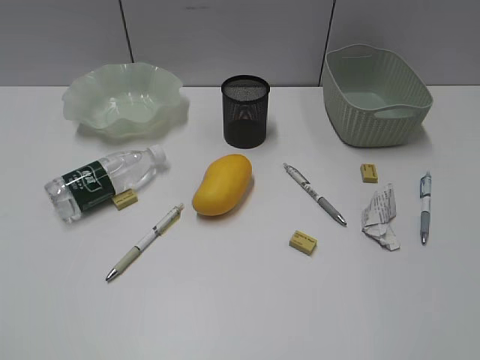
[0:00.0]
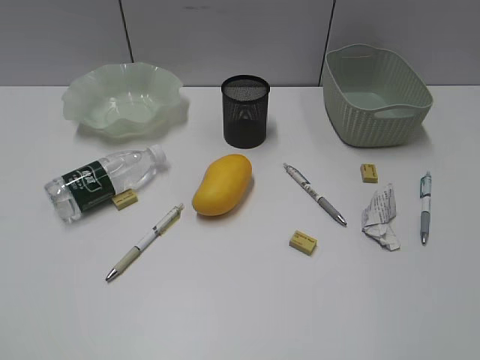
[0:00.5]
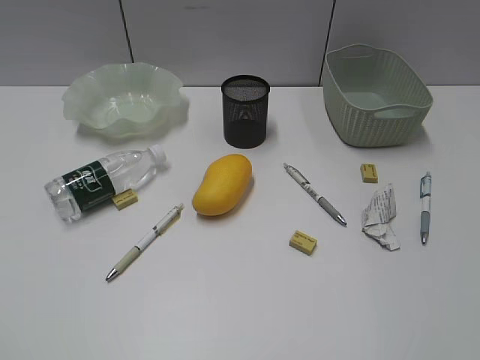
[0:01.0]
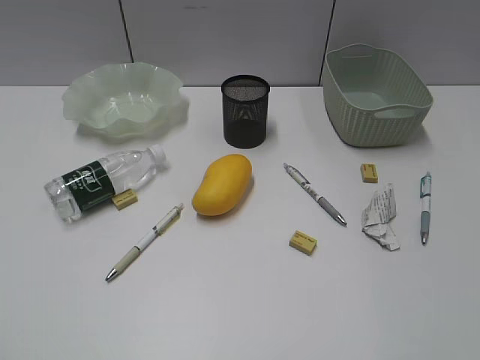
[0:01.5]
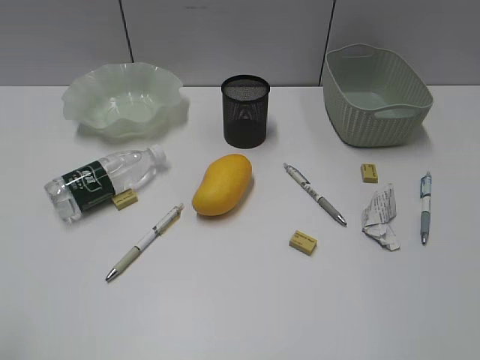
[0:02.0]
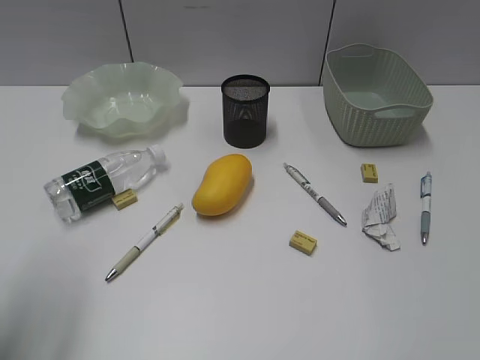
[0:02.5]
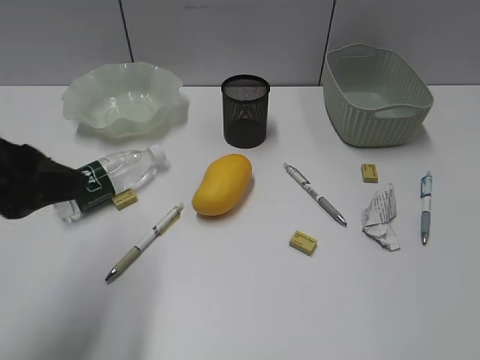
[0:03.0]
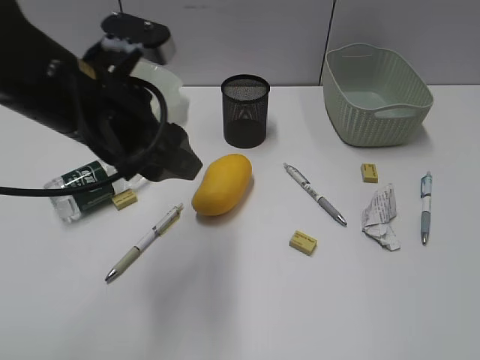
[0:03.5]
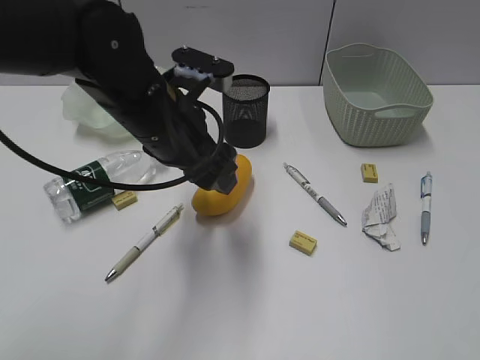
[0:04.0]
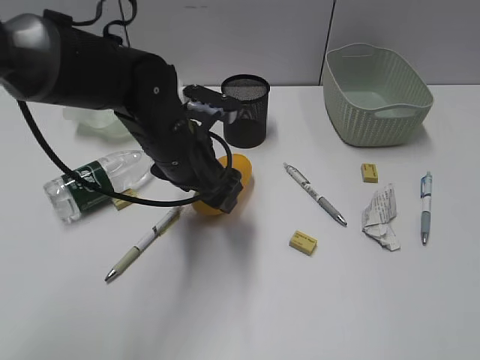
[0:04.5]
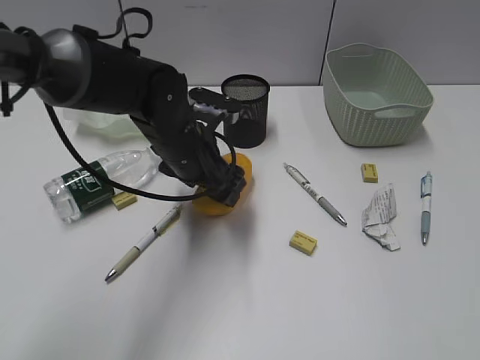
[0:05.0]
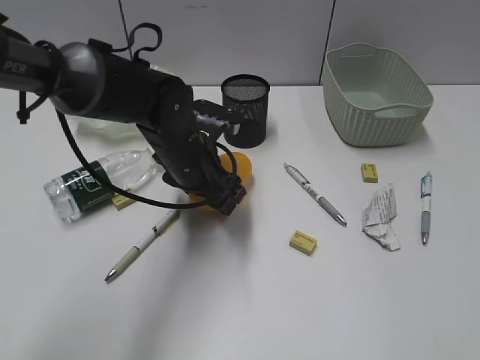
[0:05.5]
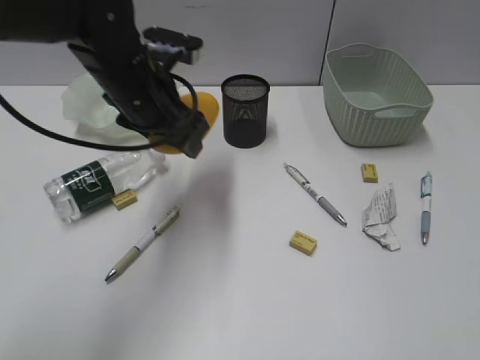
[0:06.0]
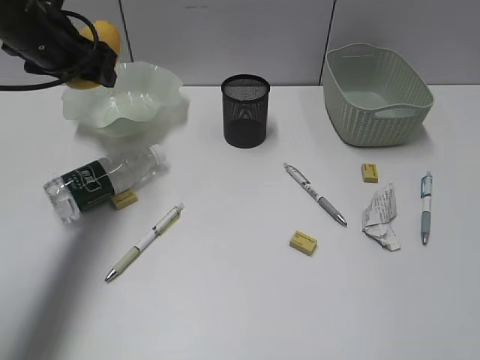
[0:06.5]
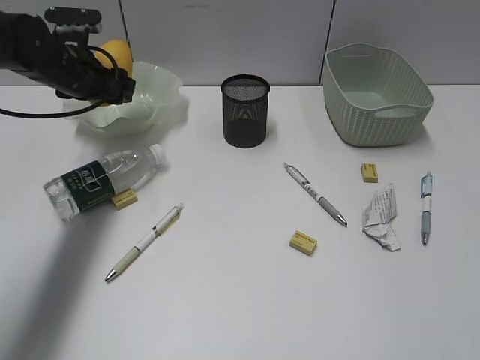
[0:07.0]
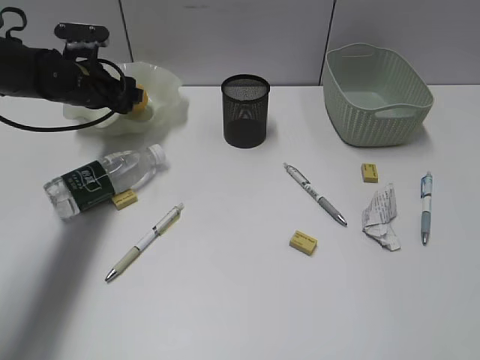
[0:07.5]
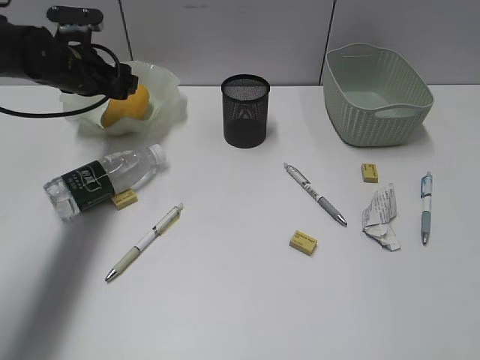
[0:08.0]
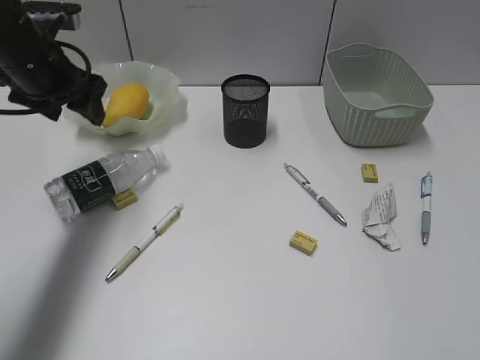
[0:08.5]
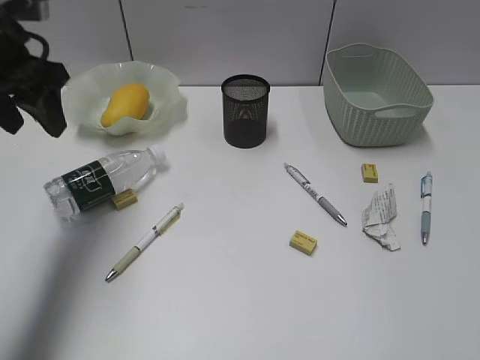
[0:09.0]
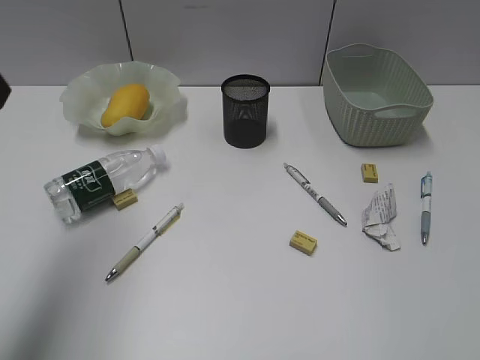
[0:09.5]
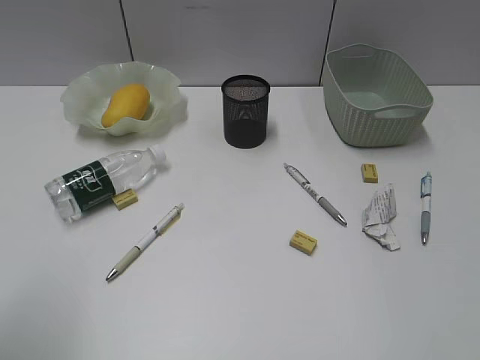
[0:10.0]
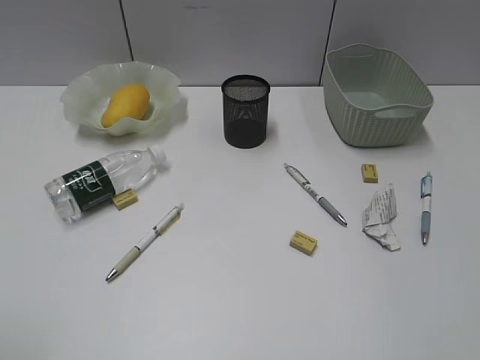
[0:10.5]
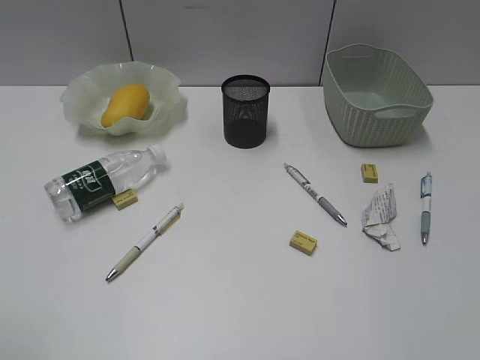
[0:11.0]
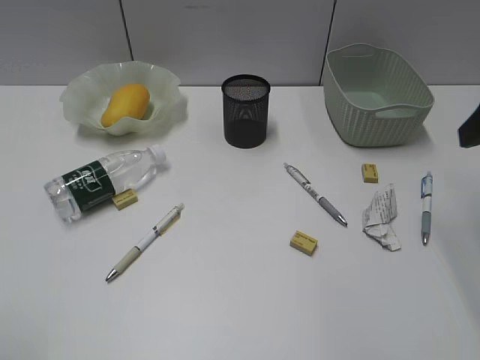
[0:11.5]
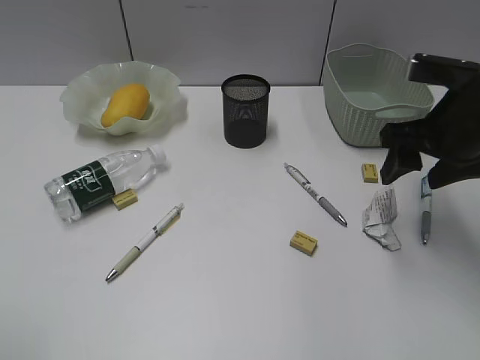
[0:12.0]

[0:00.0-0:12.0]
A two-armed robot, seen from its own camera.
Step, 0:03.0 to 0:05.5: Grasp the mango with left gripper.
Step, 0:06.0 to 0:08.0: Place the mango in the plate with left gripper.
0:02.0 to 0:04.0: The left gripper goes approximately 35 cm forward and to the right.
0:04.0 to 0:06.0: The left gripper goes roughly 5 cm forward, and travels downward and back again, roughly 10 cm each way.
0:06.0 to 0:08.0: The left gripper is displaced to the left and forward by roughly 15 cm.
0:08.0 to 0:10.0: The left gripper shifts roughly 40 cm backward and upward.
0:10.0 to 0:12.0: The right gripper moves forward, approximately 30 cm.

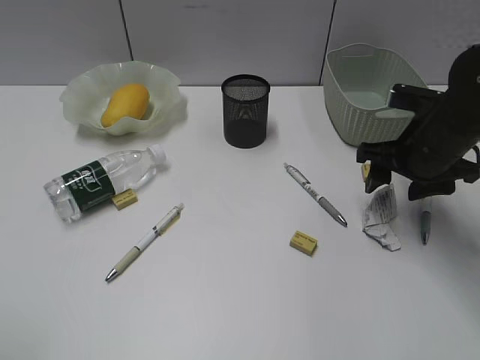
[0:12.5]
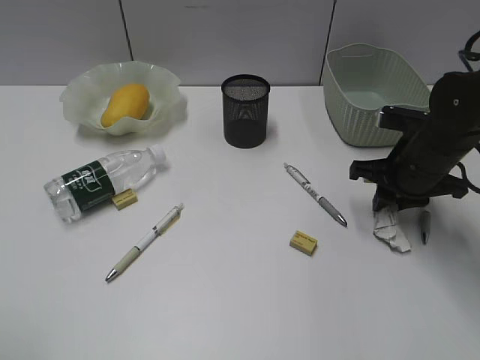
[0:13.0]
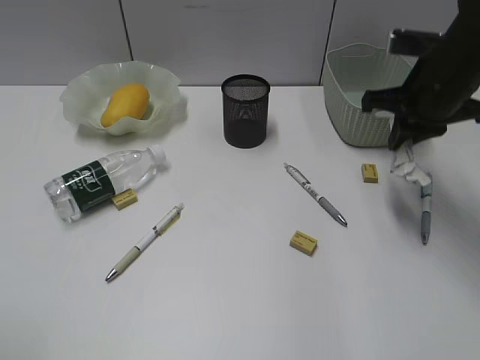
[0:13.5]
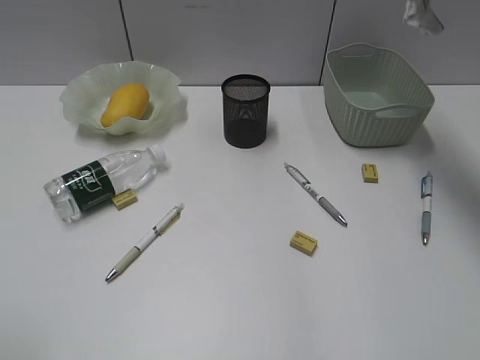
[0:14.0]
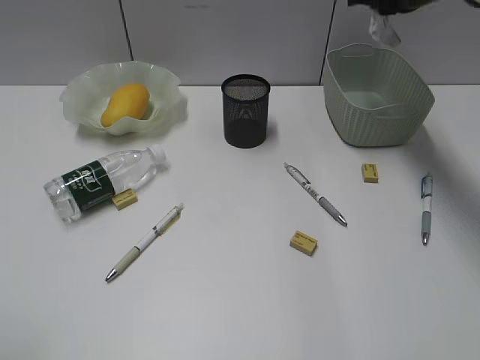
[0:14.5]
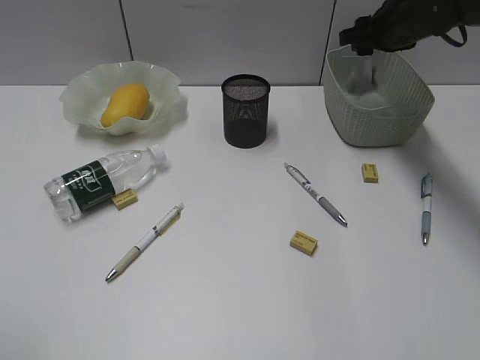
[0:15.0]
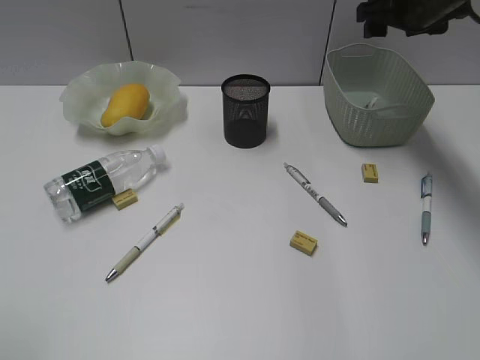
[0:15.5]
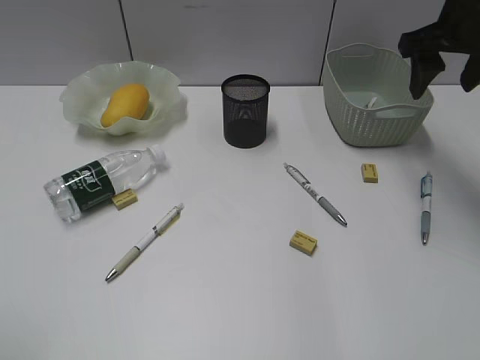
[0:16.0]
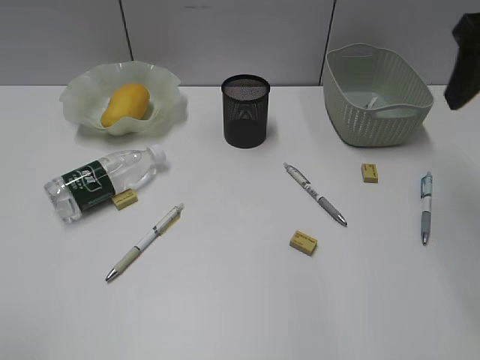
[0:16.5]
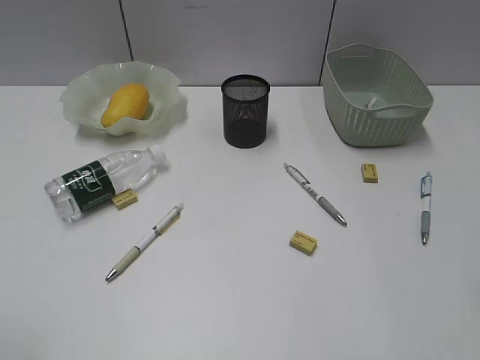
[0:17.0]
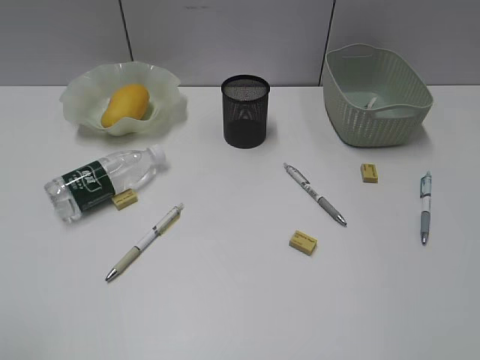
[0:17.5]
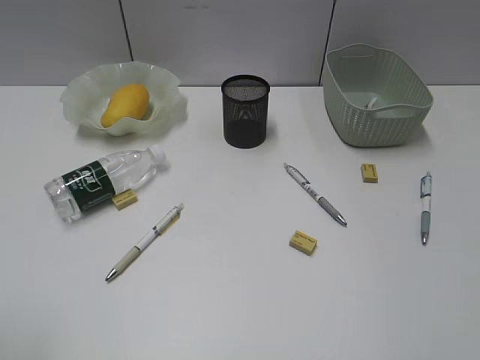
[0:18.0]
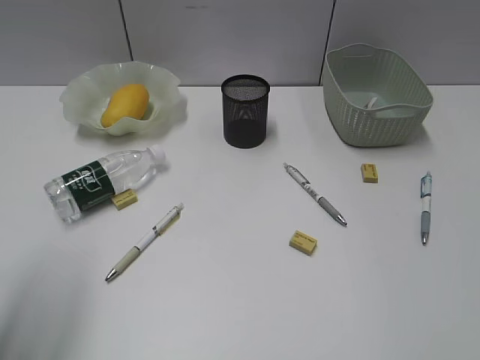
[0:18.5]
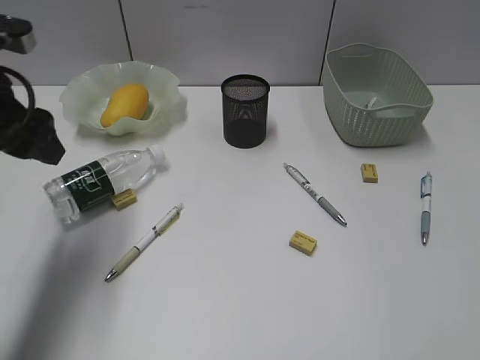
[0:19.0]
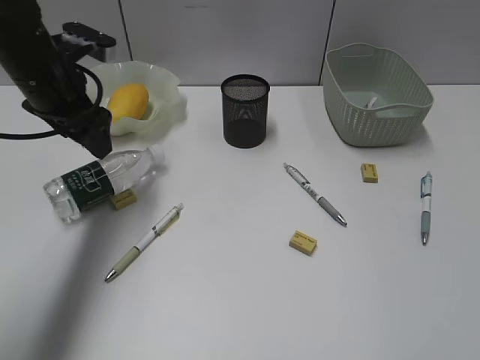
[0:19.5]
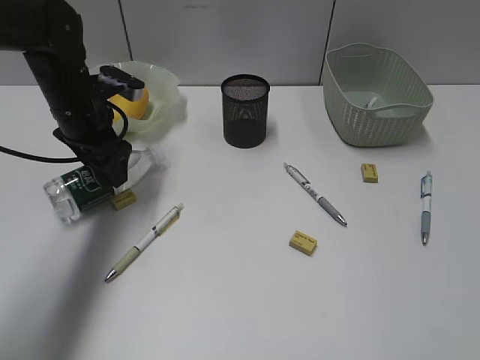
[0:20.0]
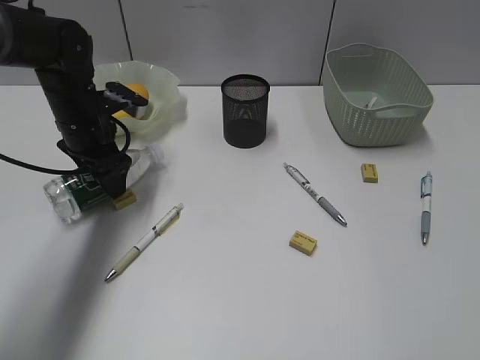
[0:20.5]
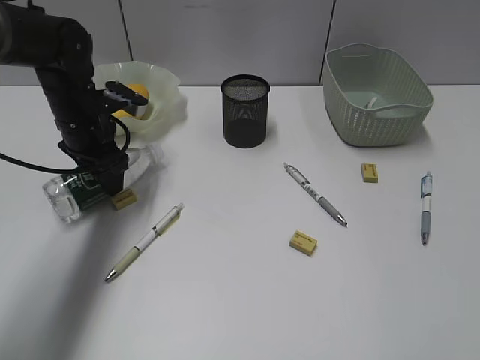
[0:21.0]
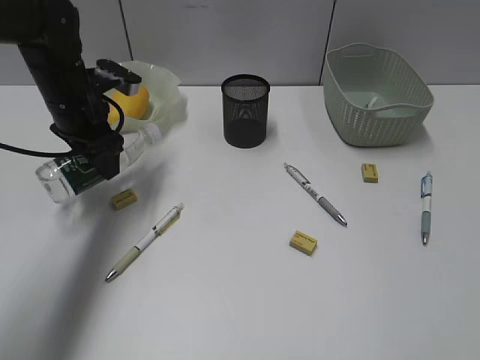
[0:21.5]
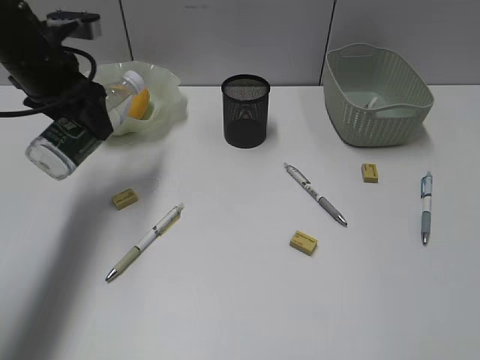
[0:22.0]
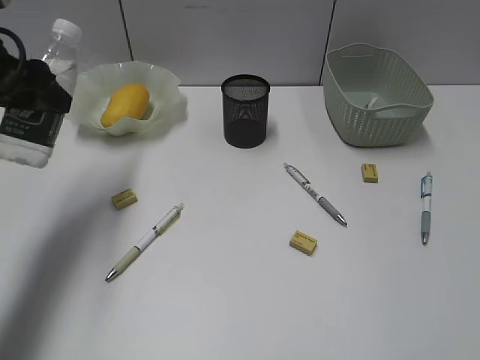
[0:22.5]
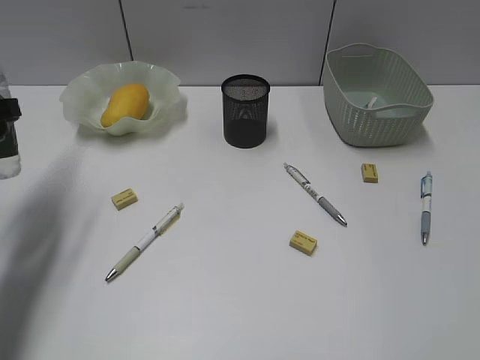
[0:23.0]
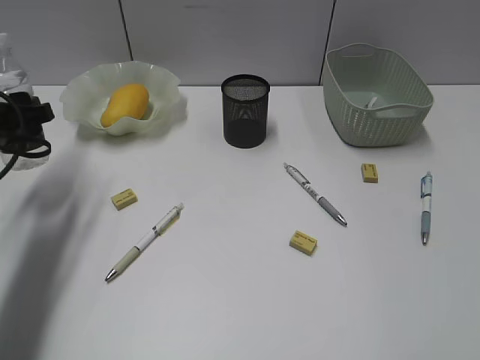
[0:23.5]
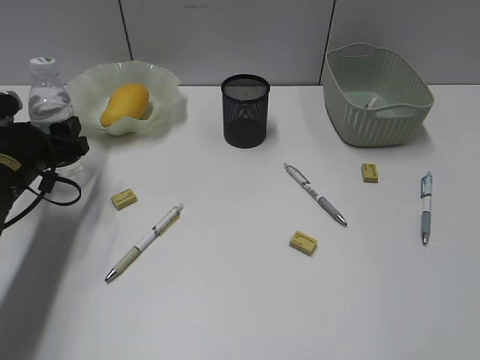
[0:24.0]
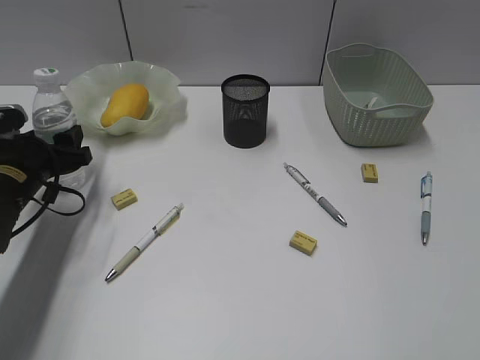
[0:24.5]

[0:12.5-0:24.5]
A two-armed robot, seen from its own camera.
Step, 0:13.5 to 0:15.0: Place the waste paper in the basket with right gripper.
Step, 0:15.5 to 0:21.0: Grasp the bottle with left gripper.
0:12.5 to 0:14.5: The right gripper travels forward and upward by approximately 20 cm, and closes.
0:14.5 to 0:16.5: The right gripper goes some 15 cm backward, and opens.
0:16.5 to 0:18.5: The right gripper heads backward, covering some 30 cm, while the left gripper is displaced forward by roughly 10 cm.
0:18.5 to 0:20.5: The left gripper goes approximately 30 cm forward and downward.
0:20.5 to 0:22.5: The left gripper heads upward, backward and to the left, covering approximately 15 cm.
0:22.5 to 0:24.5: The left gripper travels downward by roughly 20 cm.

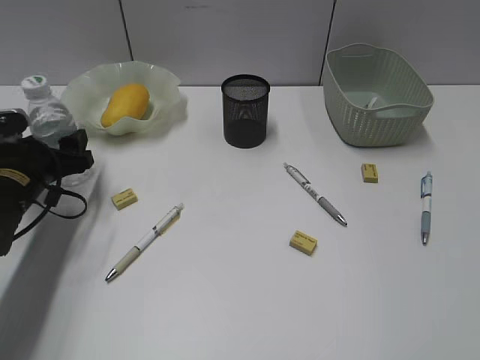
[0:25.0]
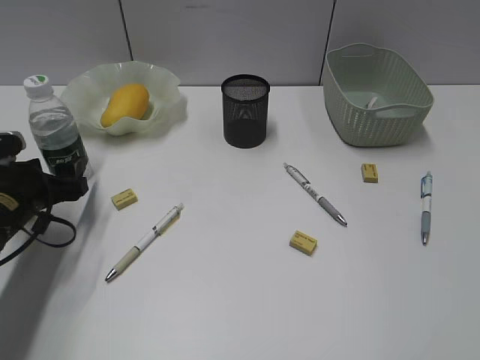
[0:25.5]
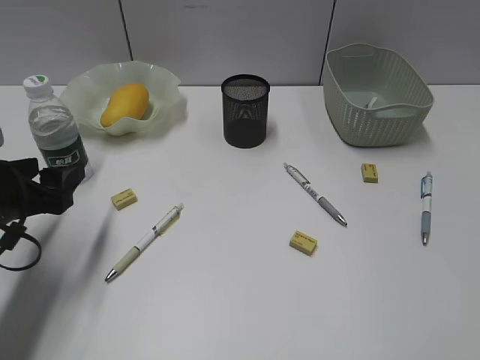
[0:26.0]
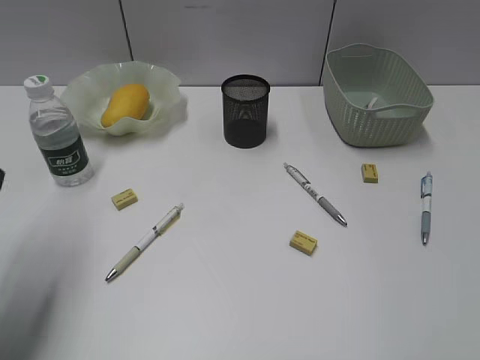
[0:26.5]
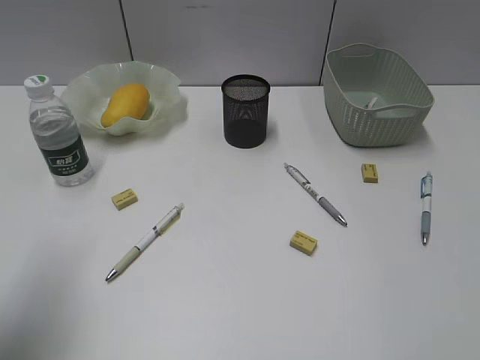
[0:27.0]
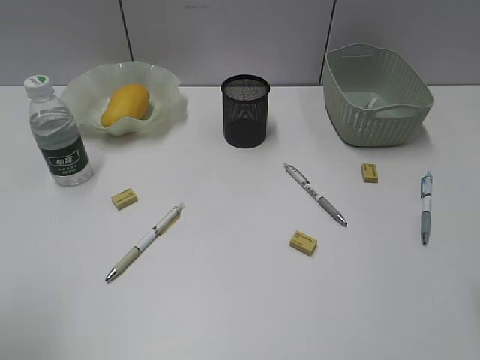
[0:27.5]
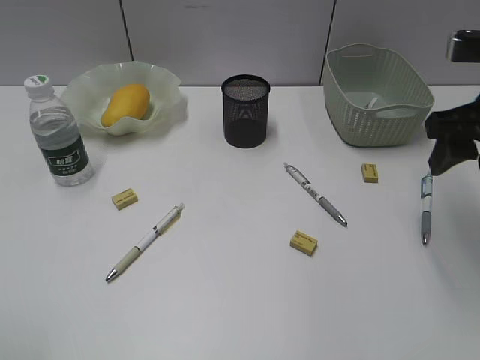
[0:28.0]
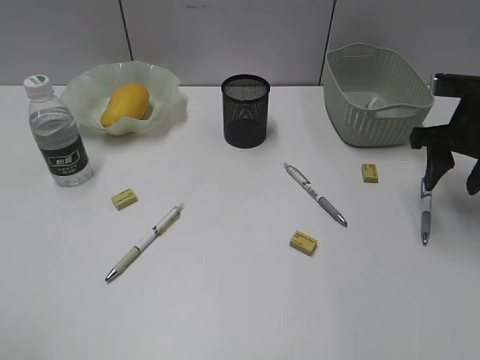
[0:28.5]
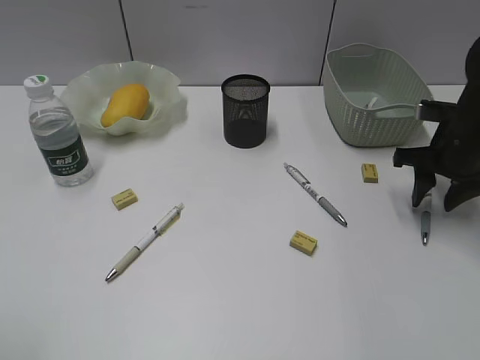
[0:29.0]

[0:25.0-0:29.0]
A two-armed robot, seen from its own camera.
0:25.0 to 0:27.0: The left gripper heads backward and upward, covering about 25 cm.
0:27.0 to 0:29.0: The left gripper shifts roughly 15 cm backward, while the right gripper goes some 35 cm forward and downward.
